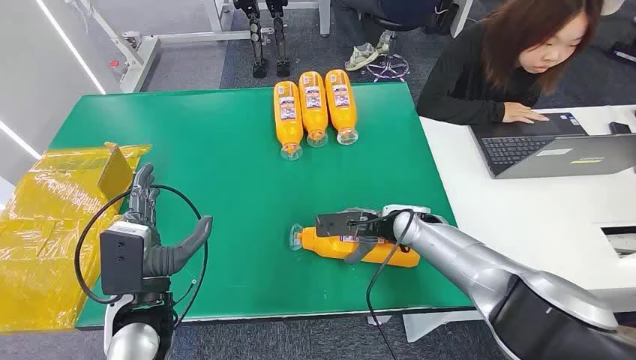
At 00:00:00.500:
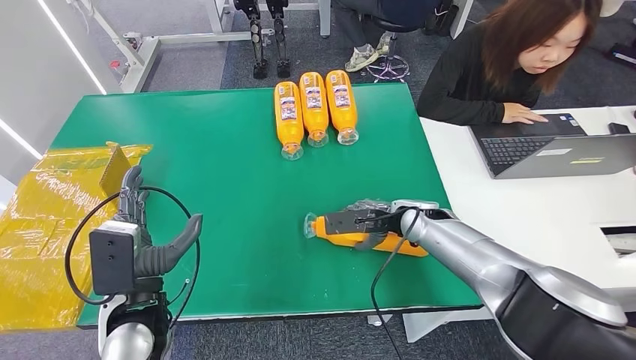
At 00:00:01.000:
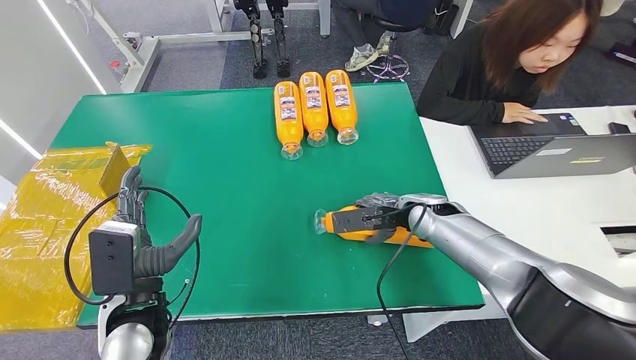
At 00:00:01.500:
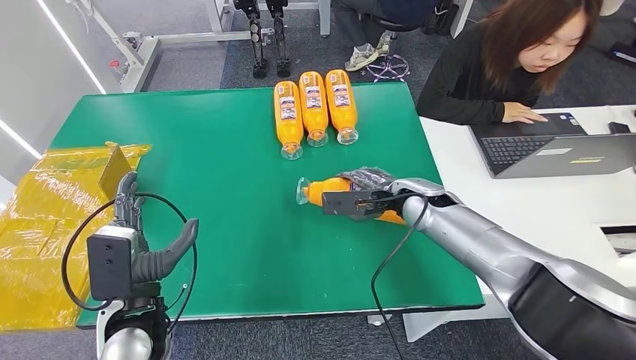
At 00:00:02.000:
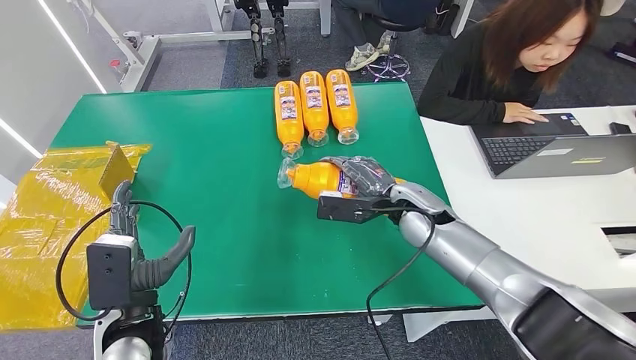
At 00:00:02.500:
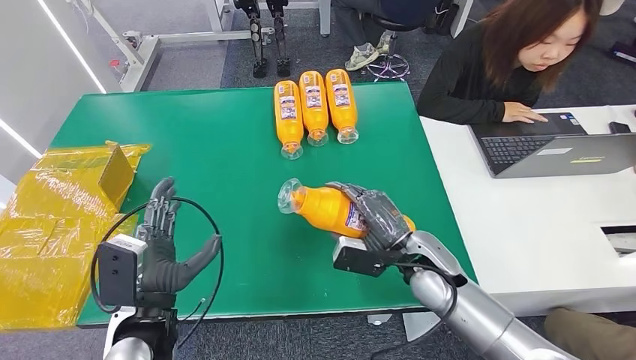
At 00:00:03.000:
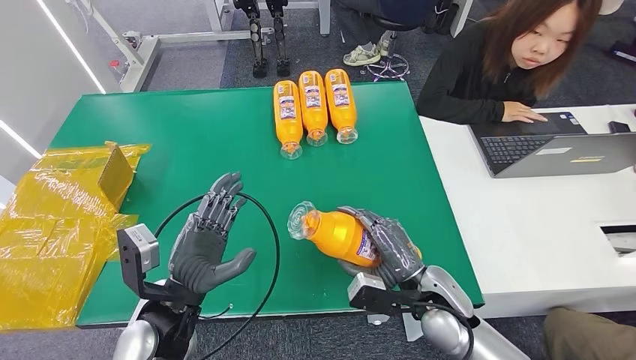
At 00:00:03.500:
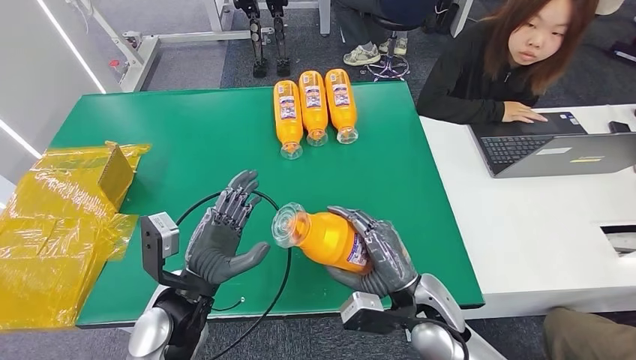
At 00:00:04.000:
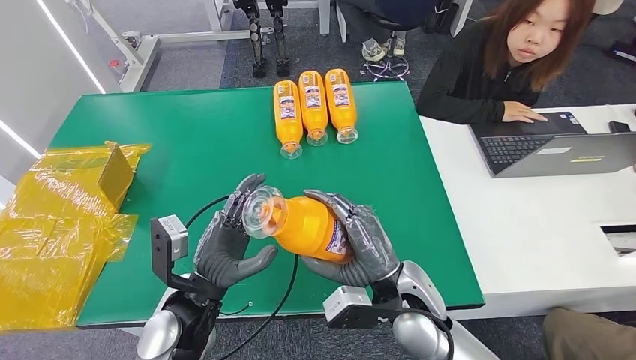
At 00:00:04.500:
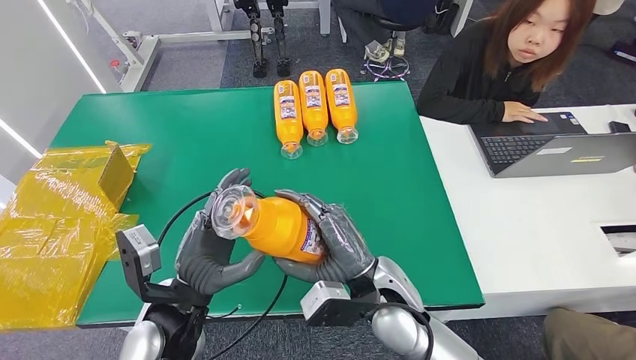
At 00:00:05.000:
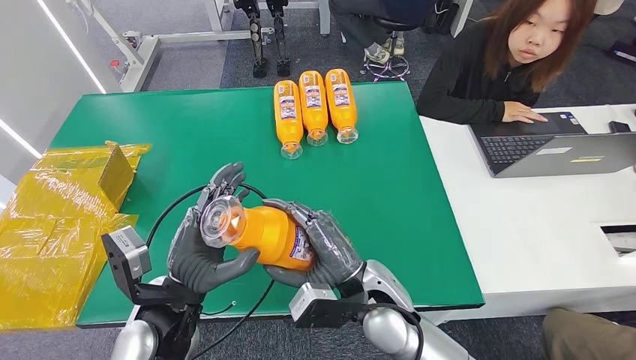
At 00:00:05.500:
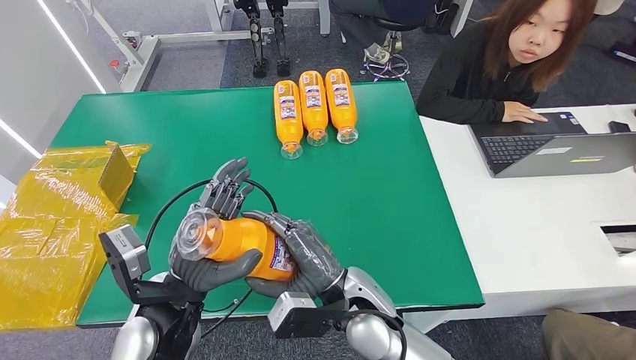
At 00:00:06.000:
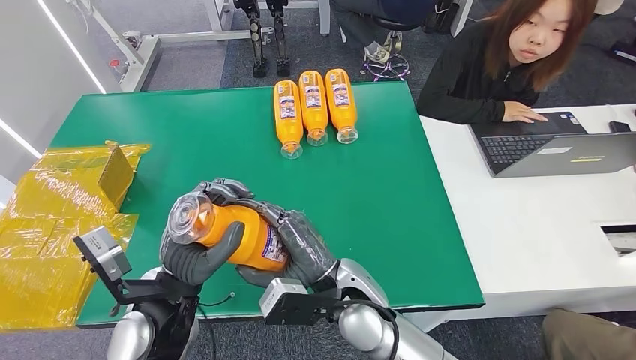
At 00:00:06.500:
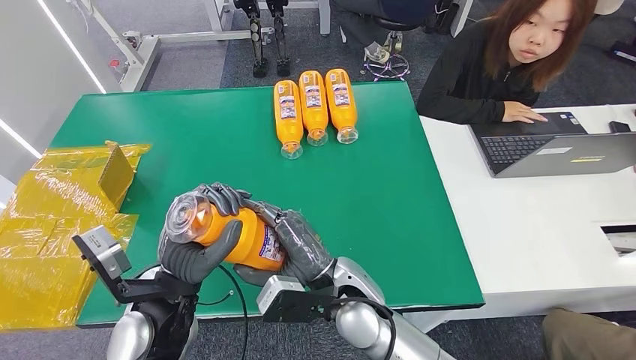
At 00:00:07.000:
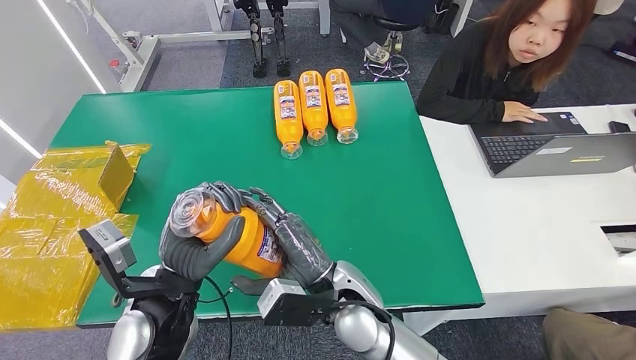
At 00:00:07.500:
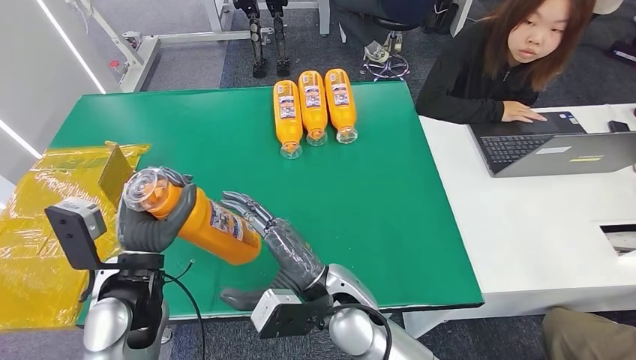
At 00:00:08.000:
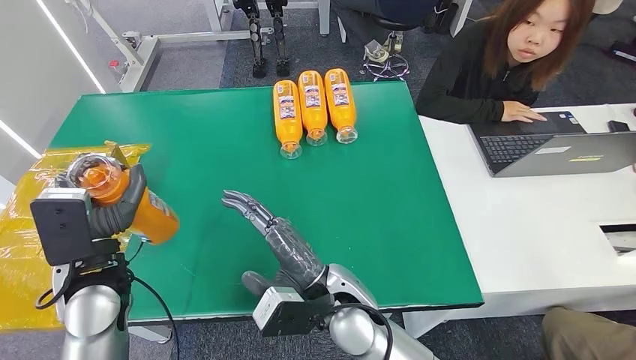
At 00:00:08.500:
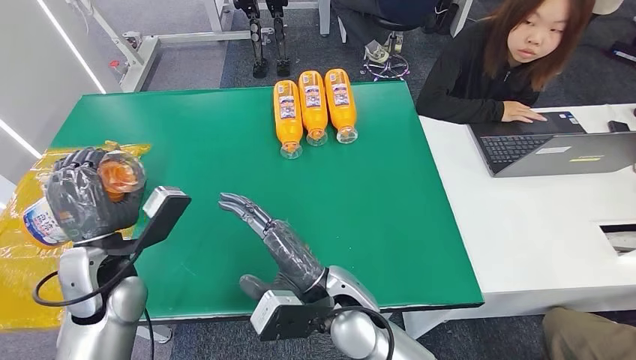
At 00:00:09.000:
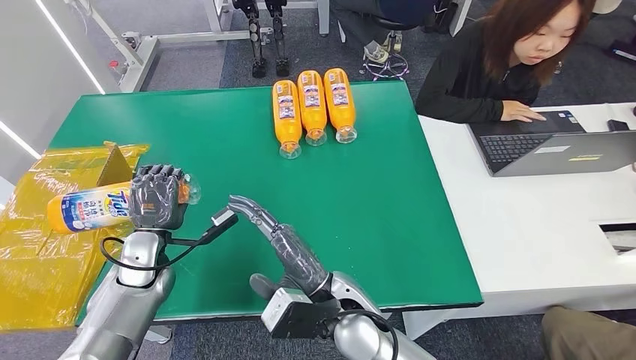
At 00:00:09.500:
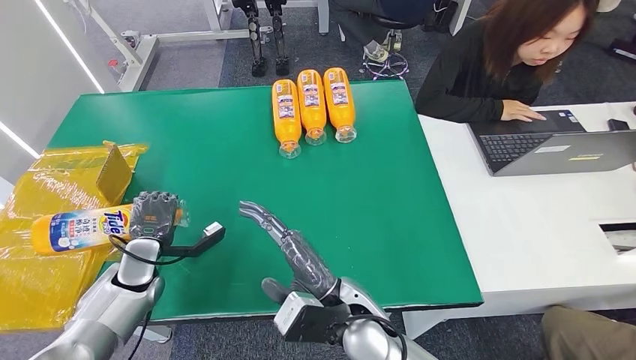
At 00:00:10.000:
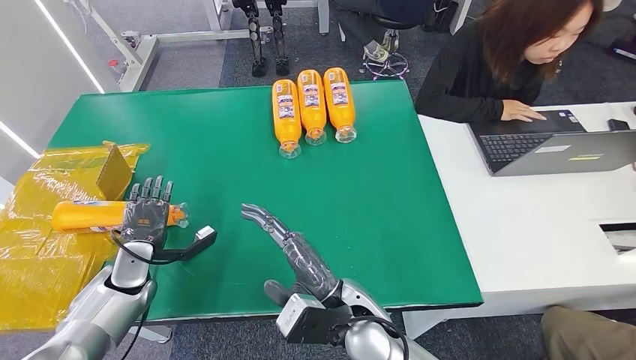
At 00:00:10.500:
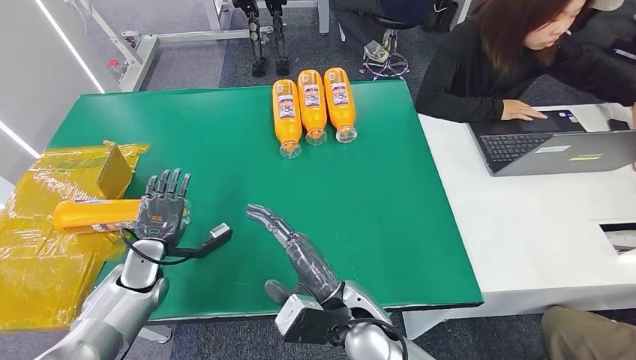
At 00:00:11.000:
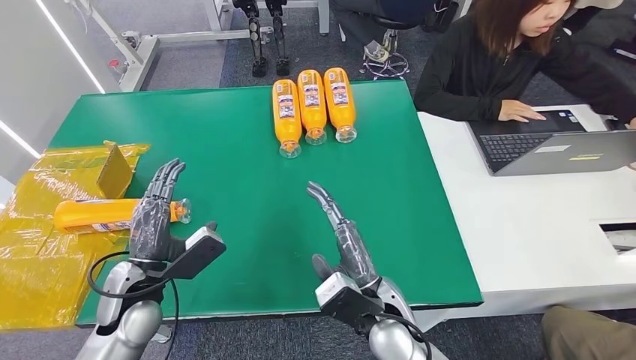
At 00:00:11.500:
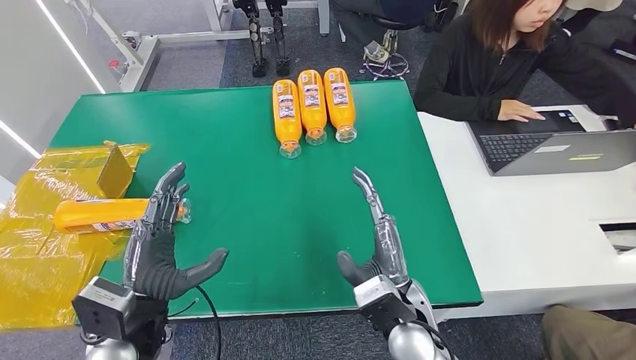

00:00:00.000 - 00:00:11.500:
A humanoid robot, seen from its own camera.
Step, 00:00:00.000 - 00:00:04.500: Pick up the bottle from the table.
Step, 00:00:05.000 - 00:00:11.000: Turn the bottle to the front side.
00:00:04.000 - 00:00:06.000: The right hand moves to the left, roughly 10 cm.
00:00:06.000 - 00:00:07.500: The left hand heads to the left, covering approximately 5 cm.
00:00:07.500 - 00:00:09.500: The left hand shifts about 20 cm to the left and downward.
00:00:09.500 - 00:00:11.500: The right hand moves to the right, approximately 10 cm. The left hand shifts some 20 cm to the right, backward and upward.

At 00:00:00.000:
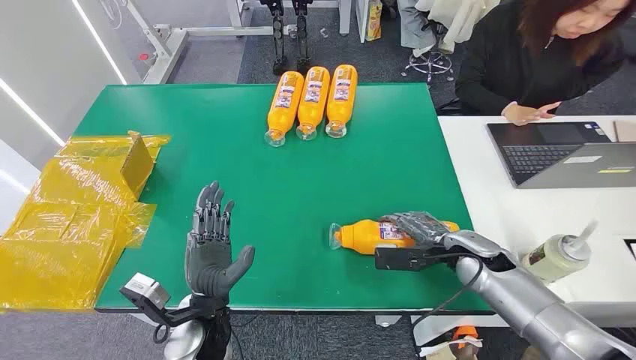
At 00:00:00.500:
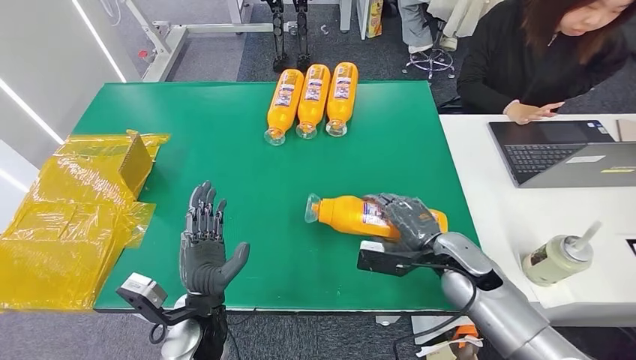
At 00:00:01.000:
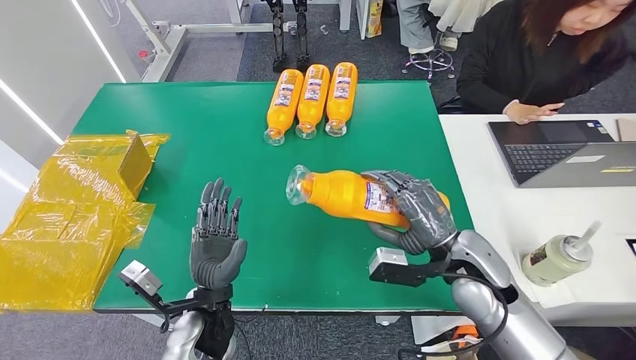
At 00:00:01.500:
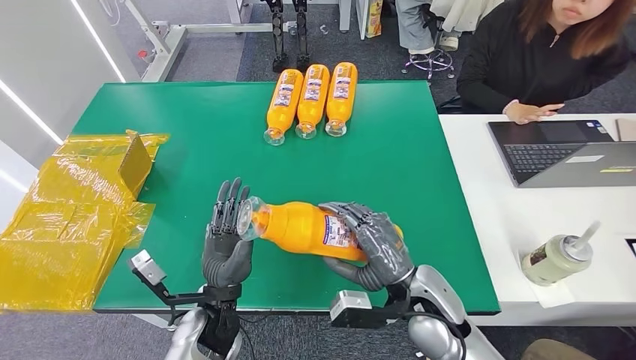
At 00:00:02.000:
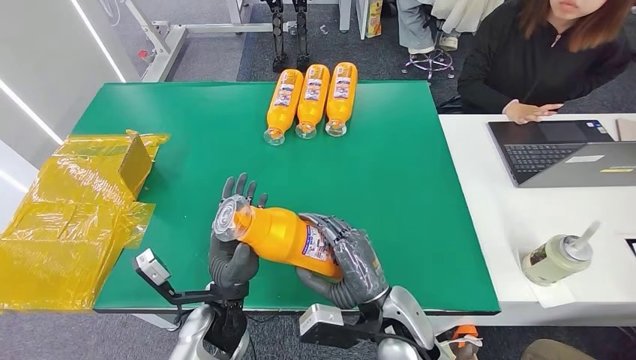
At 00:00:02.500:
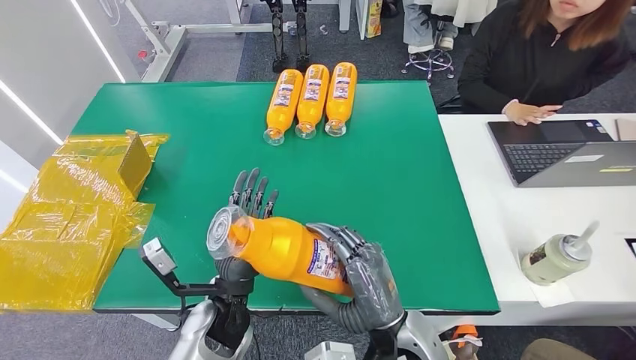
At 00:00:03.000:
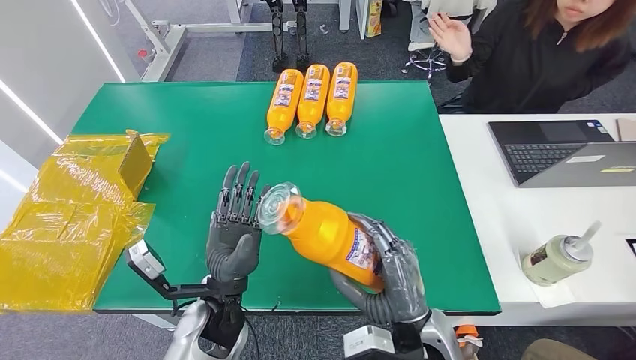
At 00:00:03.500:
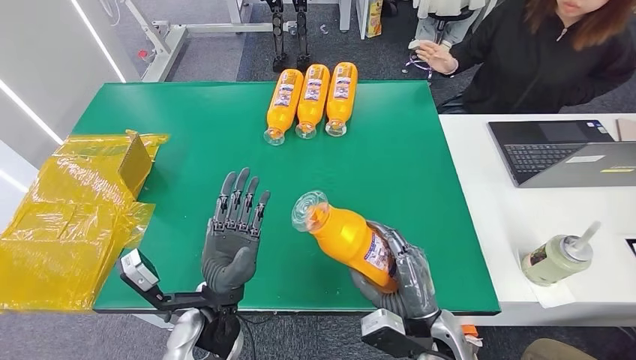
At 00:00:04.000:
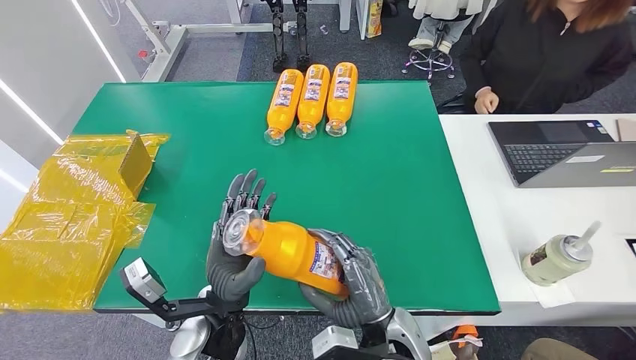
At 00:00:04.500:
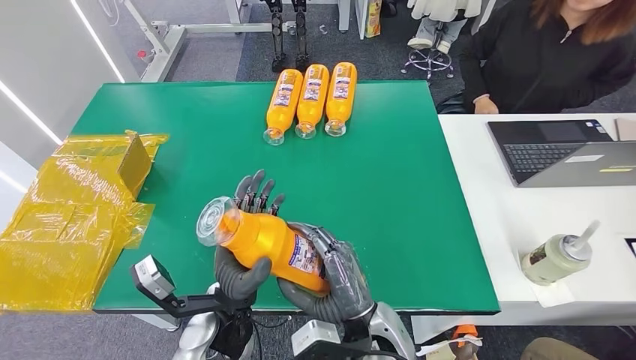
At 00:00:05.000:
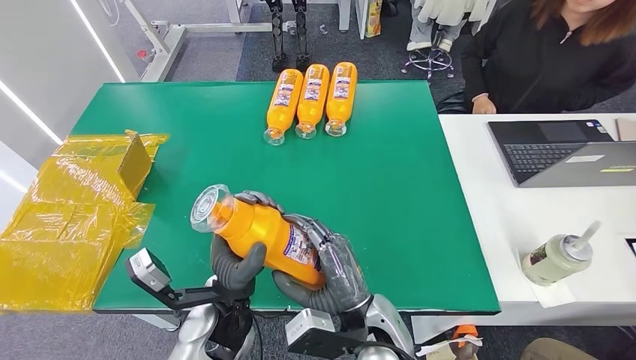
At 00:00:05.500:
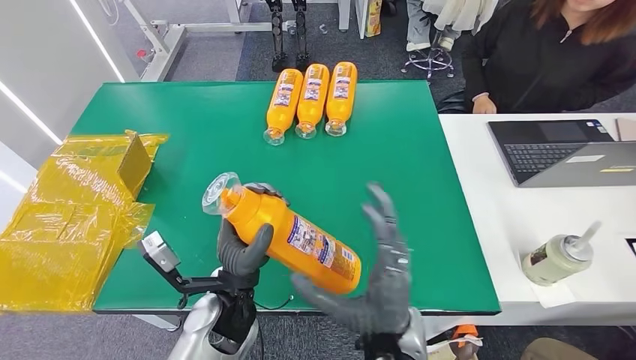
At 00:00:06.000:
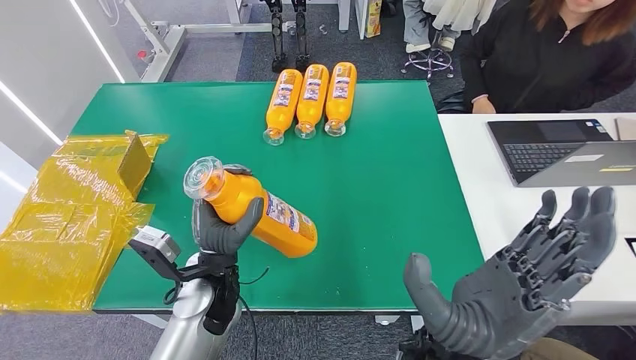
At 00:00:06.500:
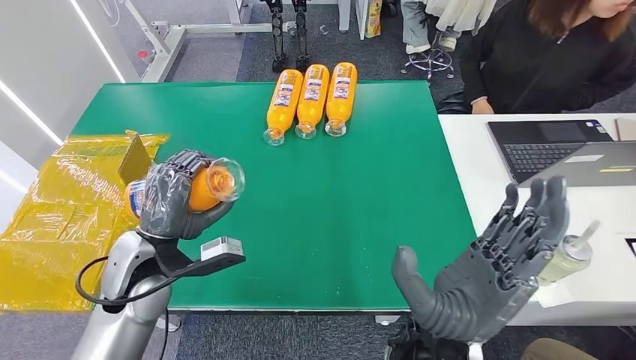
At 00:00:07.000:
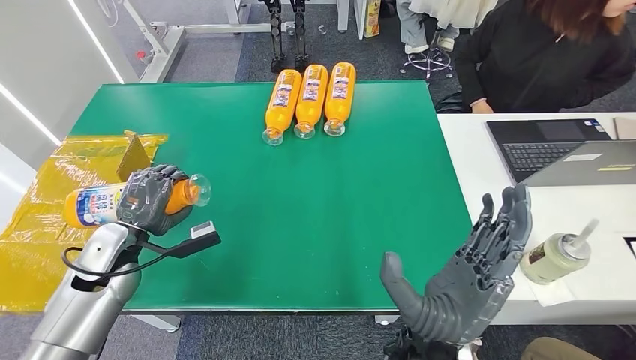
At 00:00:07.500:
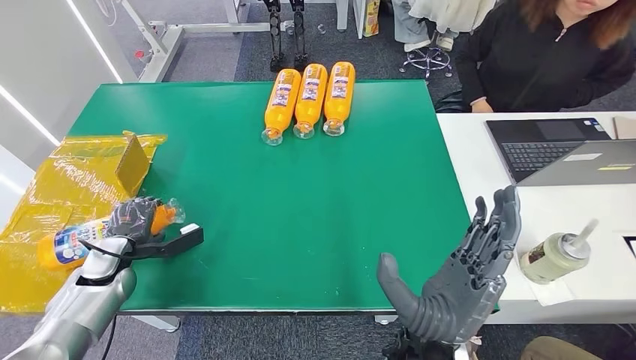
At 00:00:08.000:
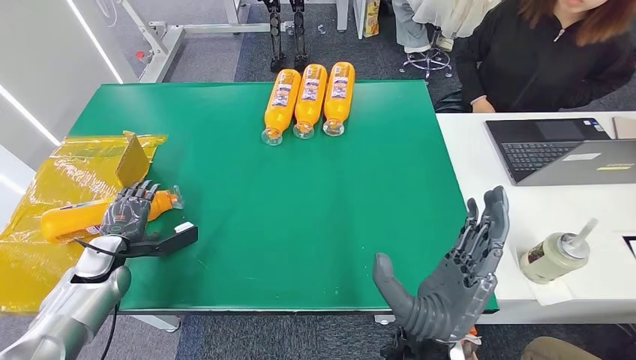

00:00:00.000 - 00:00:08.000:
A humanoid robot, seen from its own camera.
Step, 00:00:00.000 - 00:00:02.500: Pick up the bottle from the table.
Step, 00:00:03.000 - 00:00:08.000: Turn the bottle to the front side.
